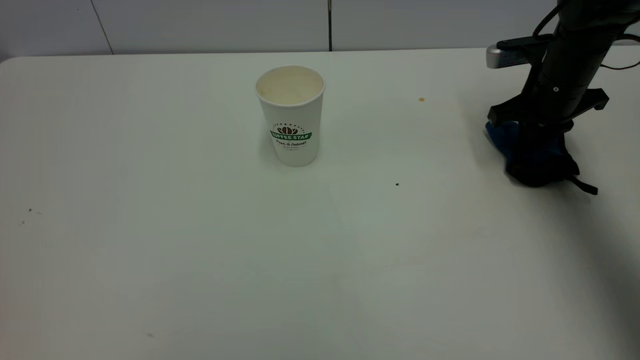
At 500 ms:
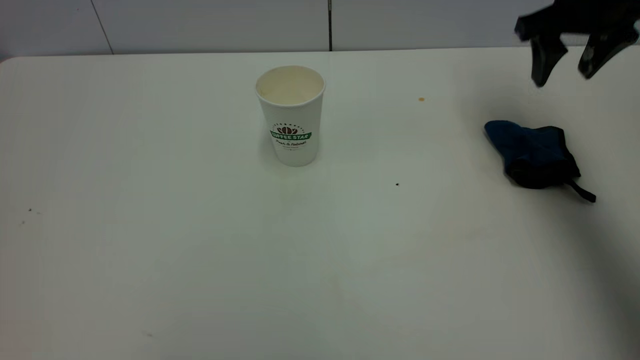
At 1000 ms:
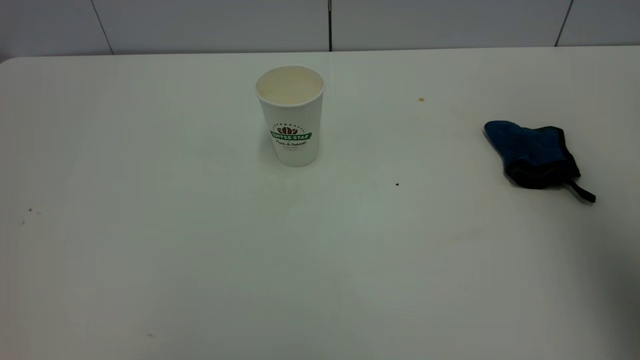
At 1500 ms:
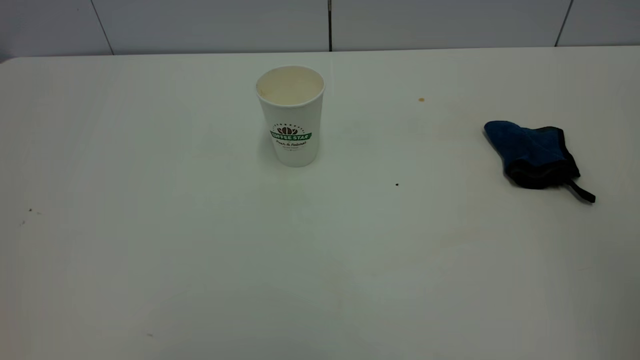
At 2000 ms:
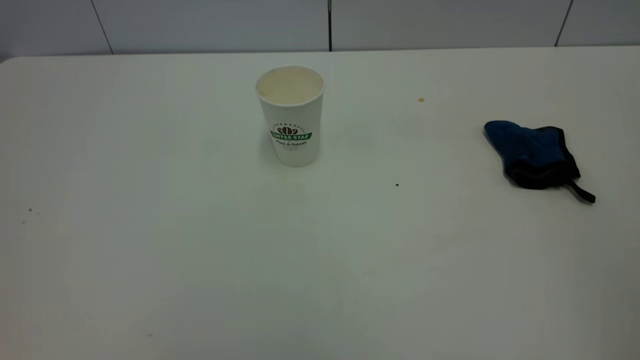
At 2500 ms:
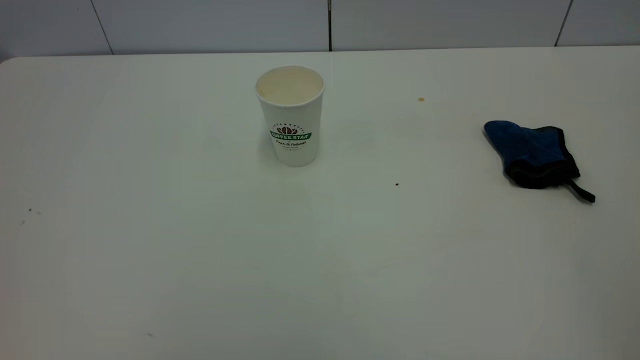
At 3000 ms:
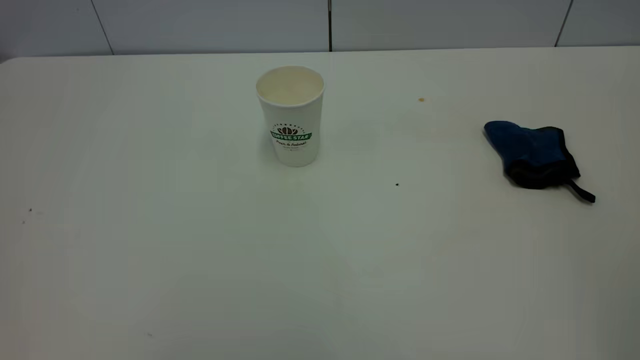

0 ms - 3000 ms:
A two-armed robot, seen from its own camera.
Task of the whole recording: the left gripper pick up the fallen cup and place it upright, the right gripper grasp the blue rag and wipe the tea stain on the table, the right gripper put the blue rag back in its original position.
0 ms - 1500 ms: The right gripper goes roughly 50 cm backward and upward, and opens.
